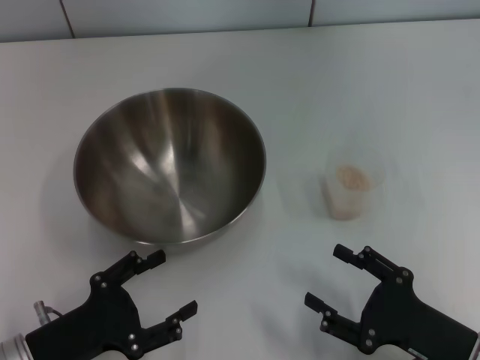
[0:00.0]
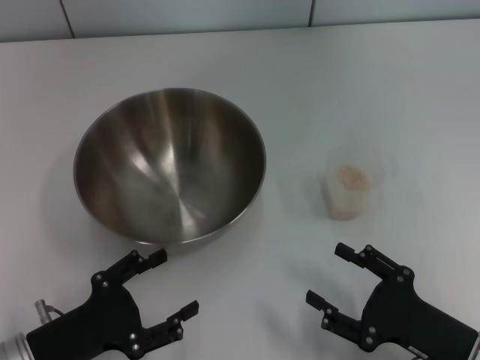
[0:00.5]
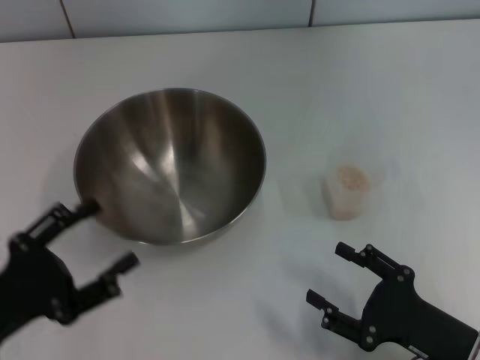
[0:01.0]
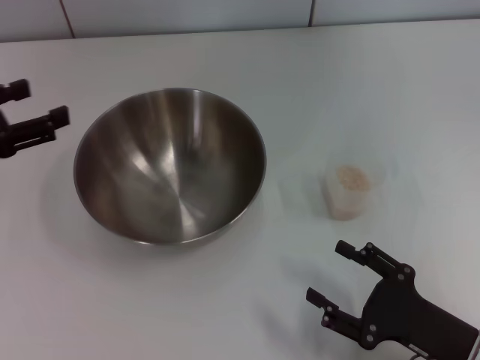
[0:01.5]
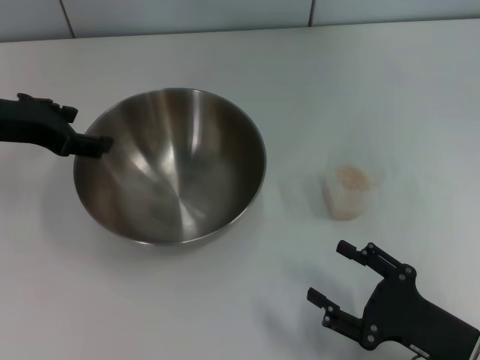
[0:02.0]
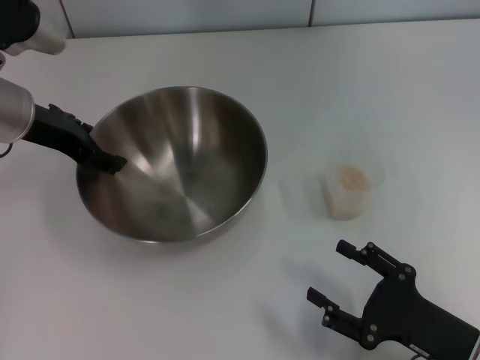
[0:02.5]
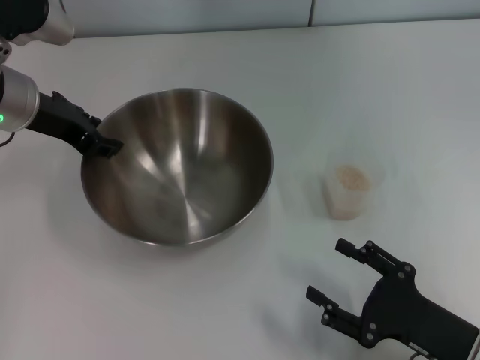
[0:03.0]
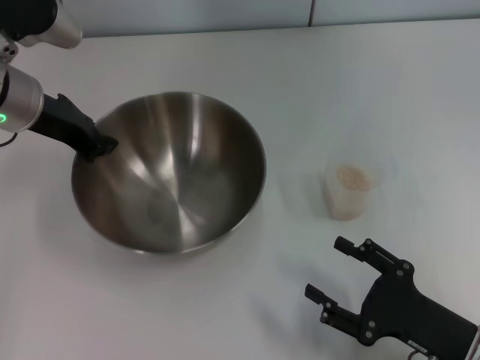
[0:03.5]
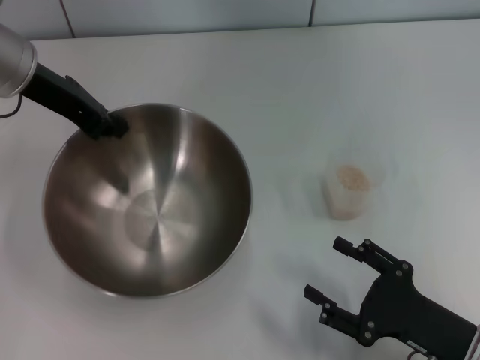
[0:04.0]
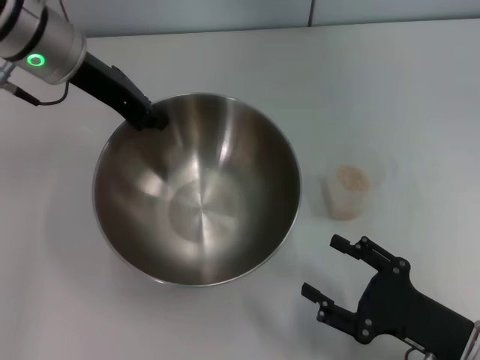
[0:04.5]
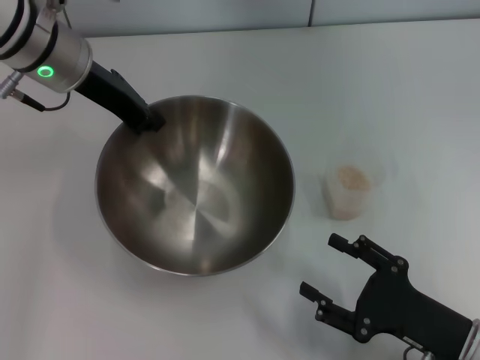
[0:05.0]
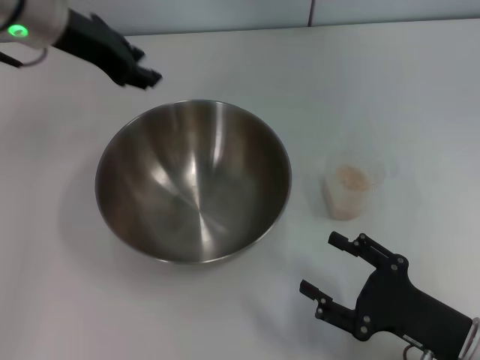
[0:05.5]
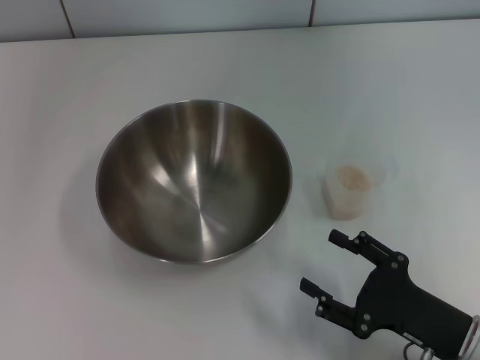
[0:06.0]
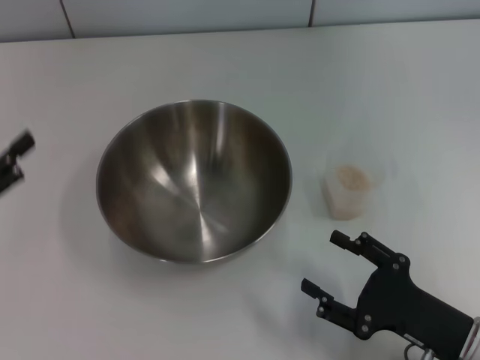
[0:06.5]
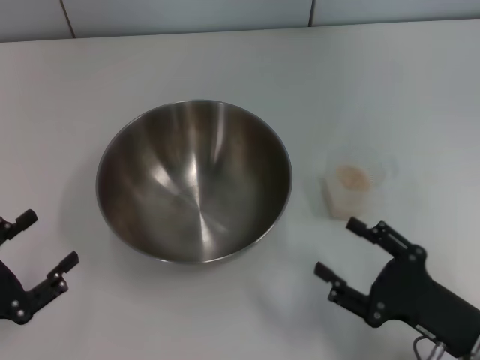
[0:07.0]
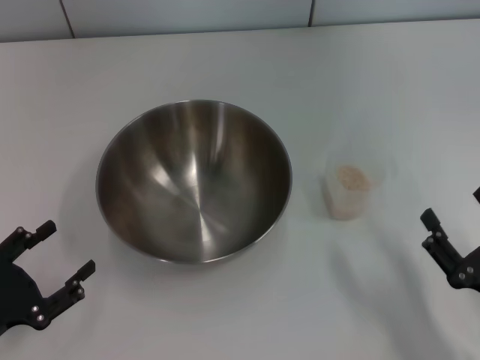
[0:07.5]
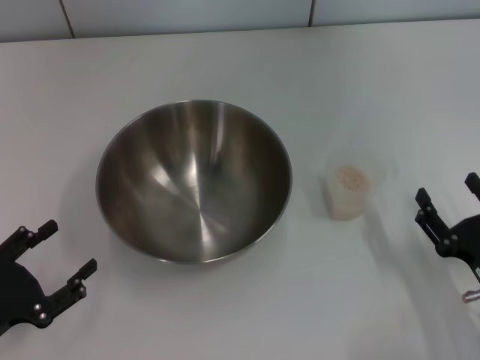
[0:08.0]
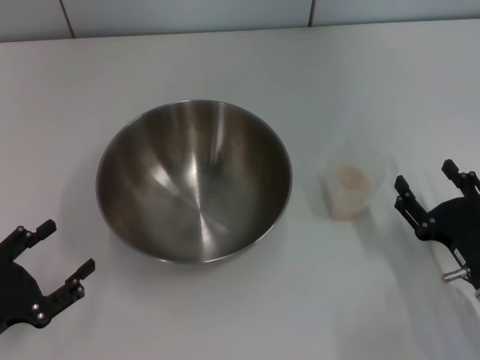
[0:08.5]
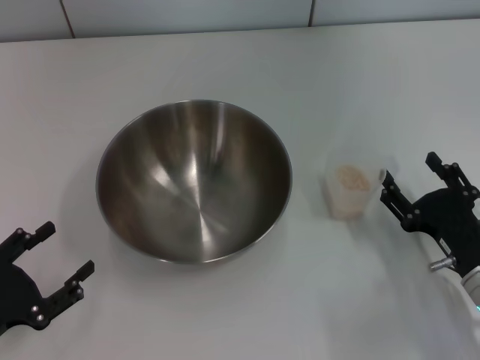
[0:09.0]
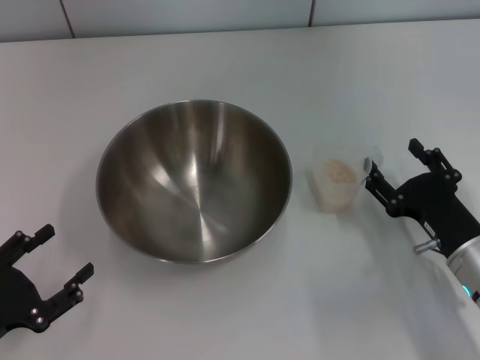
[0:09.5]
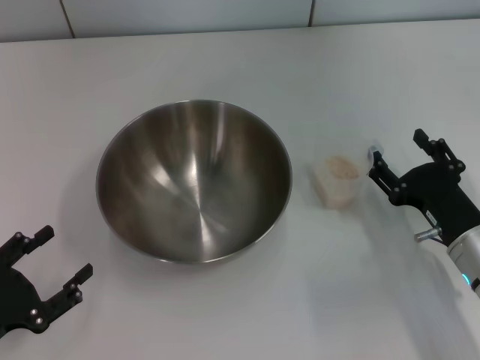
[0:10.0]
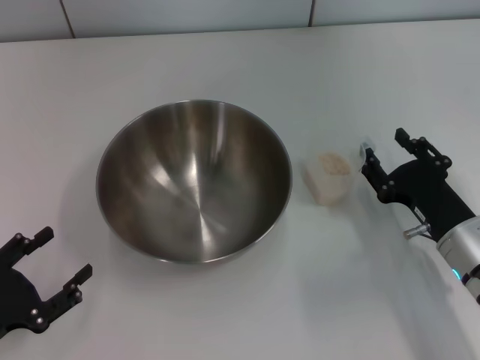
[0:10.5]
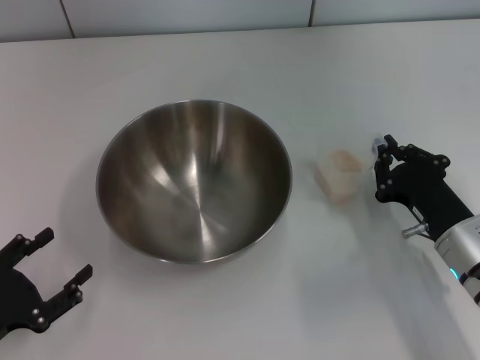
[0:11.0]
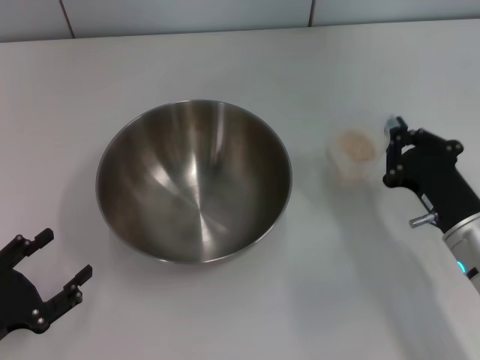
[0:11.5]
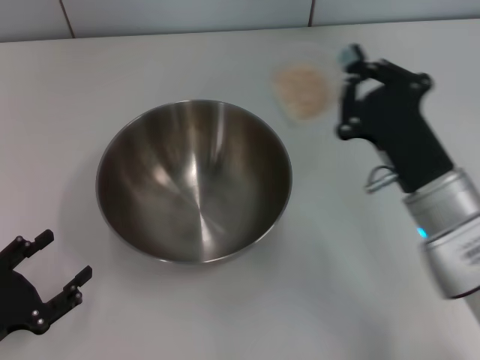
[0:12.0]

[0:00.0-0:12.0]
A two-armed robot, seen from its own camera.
Task of the whole recording: Place the bowl in the middle of the table with one hand and pour the rice from the grain cup into it with the other hand.
Step, 0.0 to 3.0 s: Pick up the bowl with the left gripper.
Step, 3.5 to 5.5 s: Place the bowl in the center of view with the left gripper.
Step, 6.0 to 11.5 s: Pick up the cup with rice in it with the right gripper.
0.0 to 2.0 s: The left gripper travels forward and upward by about 25 cm.
2.0 to 4.0 s: The left gripper travels forward by roughly 5 cm, and closes up.
4.0 to 6.0 s: The left gripper moves upward, backward and to the left, roughly 15 cm, and opens up.
6.0 to 8.0 s: The left gripper is displaced downward and backward by roughly 30 cm.
8.0 to 10.0 s: The right gripper moves forward, approximately 5 cm.
10.0 to 12.0 s: The right gripper moves upward and to the left, roughly 10 cm, and closes up.

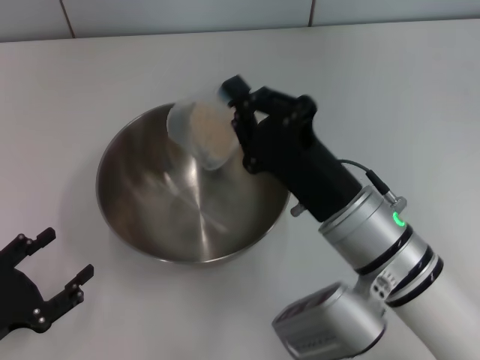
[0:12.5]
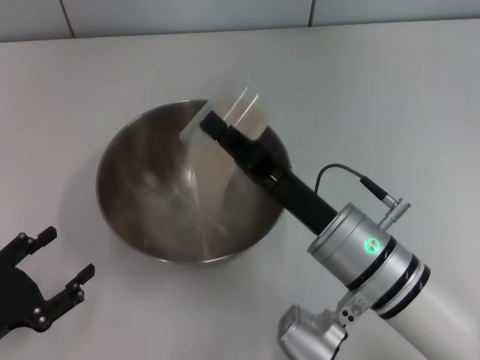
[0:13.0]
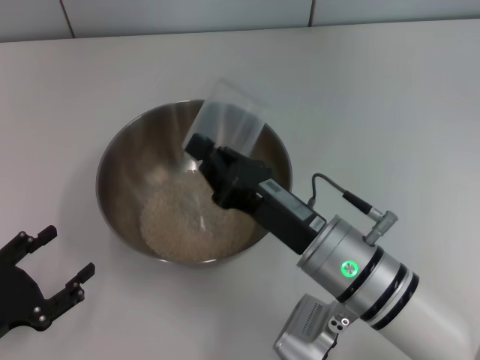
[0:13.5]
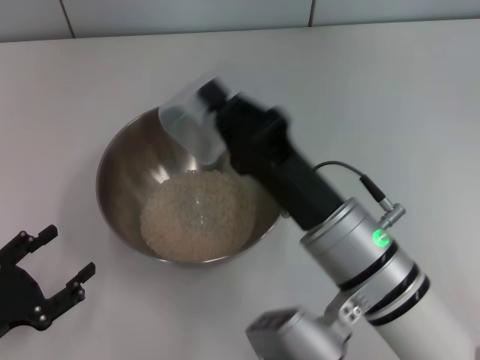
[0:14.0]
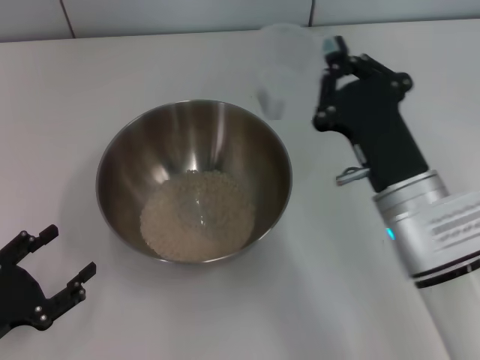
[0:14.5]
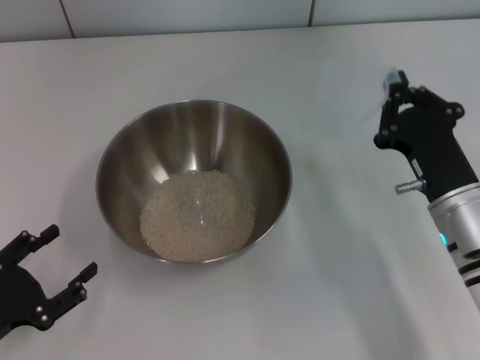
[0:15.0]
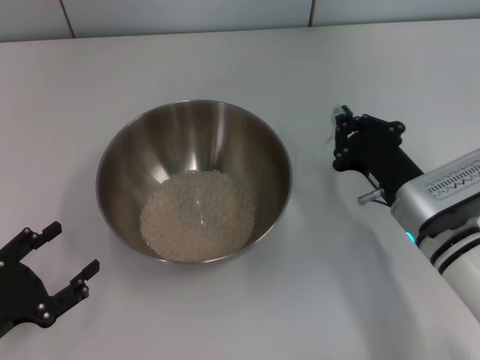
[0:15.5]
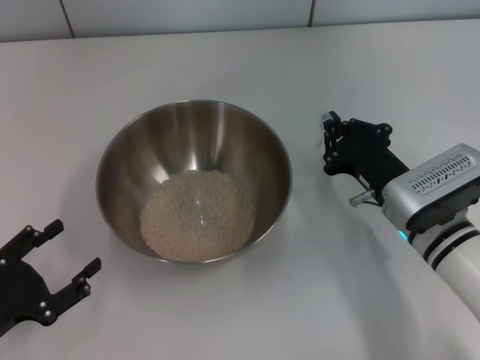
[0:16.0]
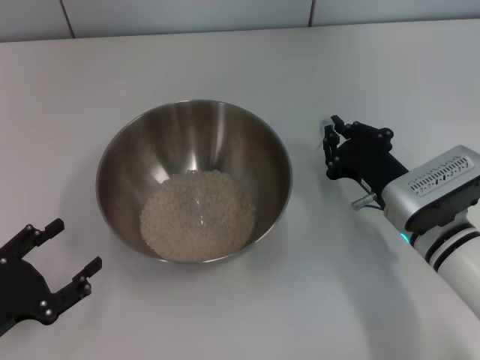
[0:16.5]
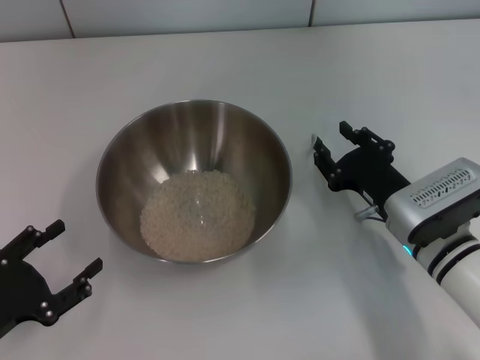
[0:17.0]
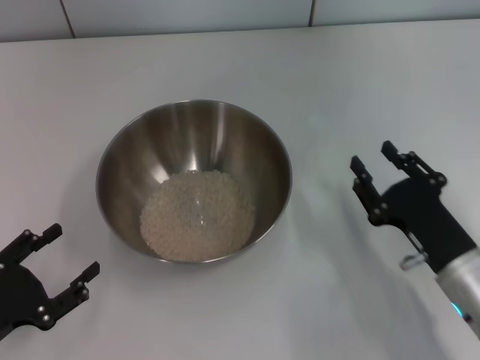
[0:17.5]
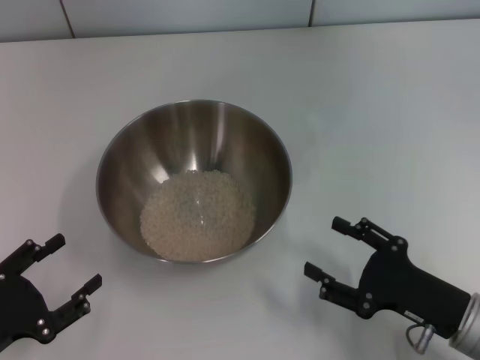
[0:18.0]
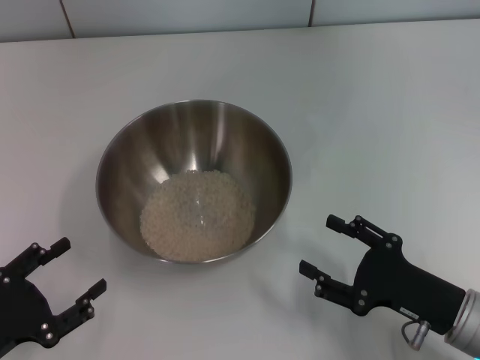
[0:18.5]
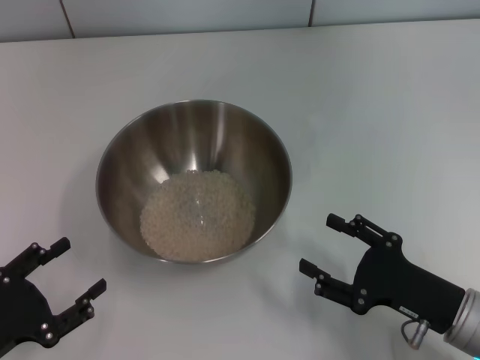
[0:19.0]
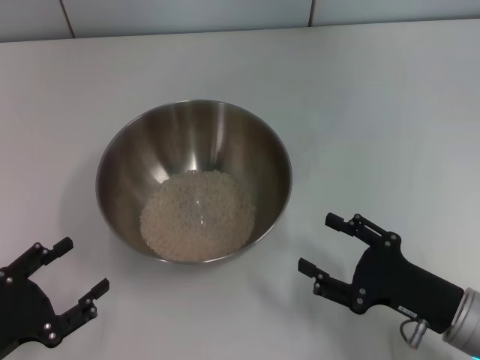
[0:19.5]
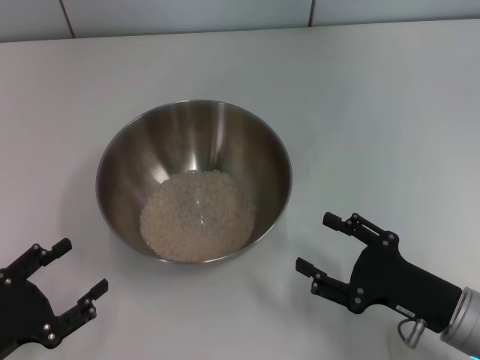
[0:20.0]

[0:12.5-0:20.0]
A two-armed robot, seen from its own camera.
Task of the whole recording: Place the bowl in the middle of the table with one hand and pour the rice from the grain cup into it with the other hand.
Step, 12.5 to 15.0 s: Pour the rice from the cup into the bowl with the right gripper.
Step, 15.5 to 18.0 s: Place the cup on the table with the right gripper.
14.5 to 16.5 s: The right gripper travels downward by approximately 5 cm.
16.5 to 18.0 s: The right gripper goes about 10 cm backward, and opens.
18.0 to 20.0 s: The two grippers keep their place.

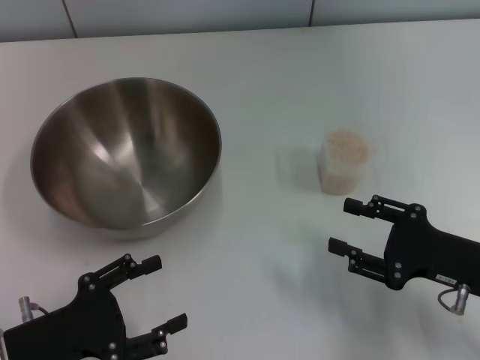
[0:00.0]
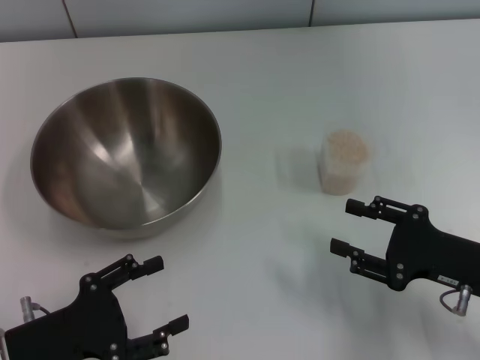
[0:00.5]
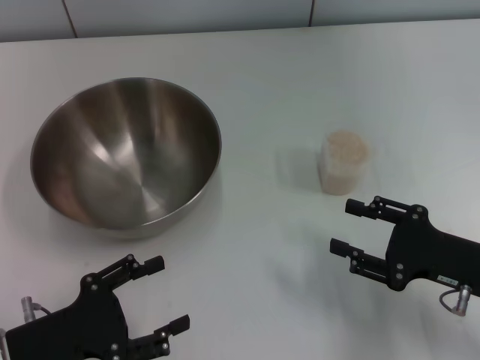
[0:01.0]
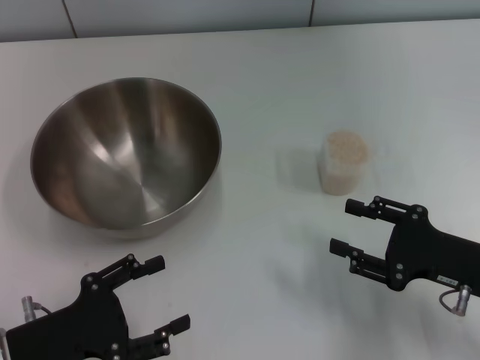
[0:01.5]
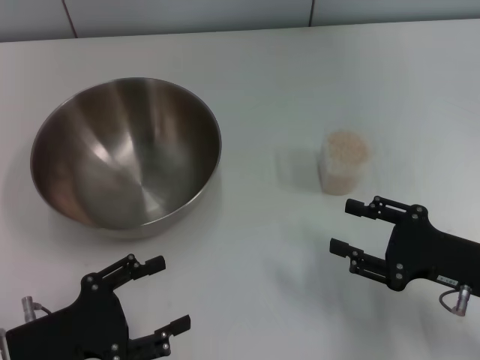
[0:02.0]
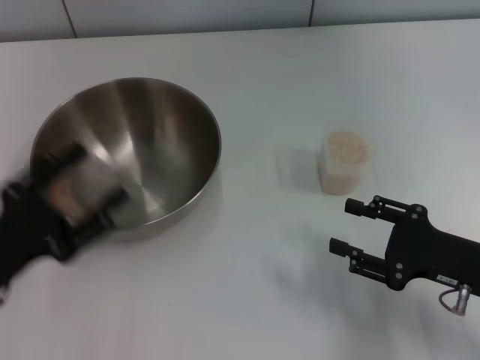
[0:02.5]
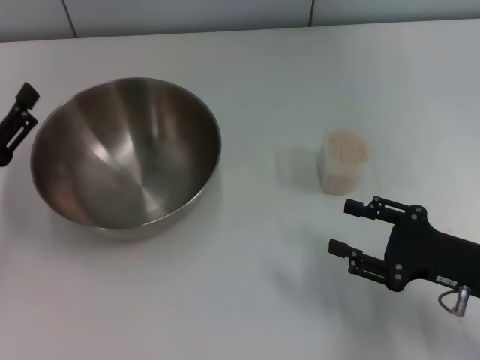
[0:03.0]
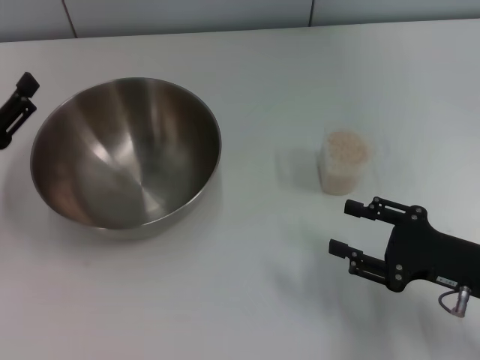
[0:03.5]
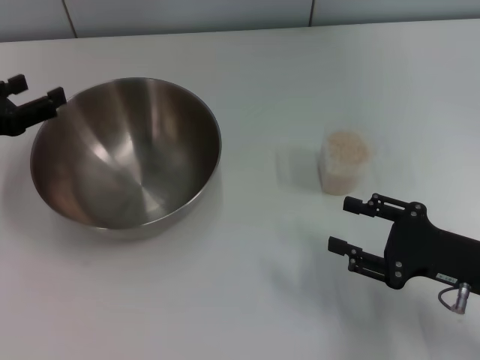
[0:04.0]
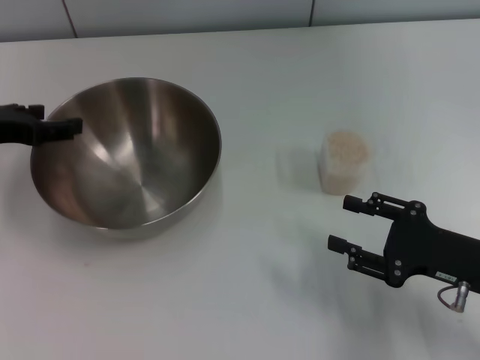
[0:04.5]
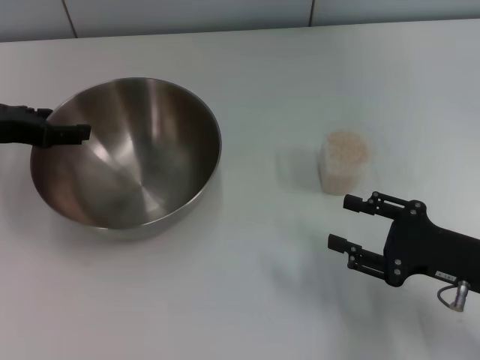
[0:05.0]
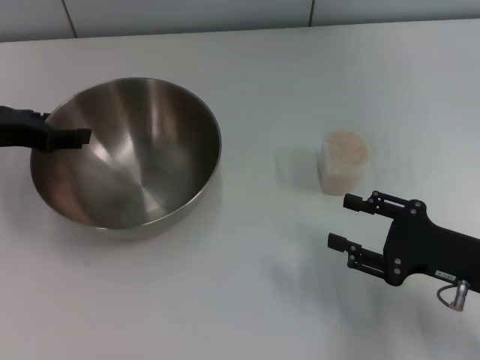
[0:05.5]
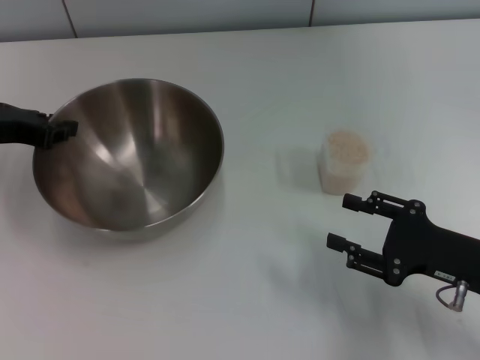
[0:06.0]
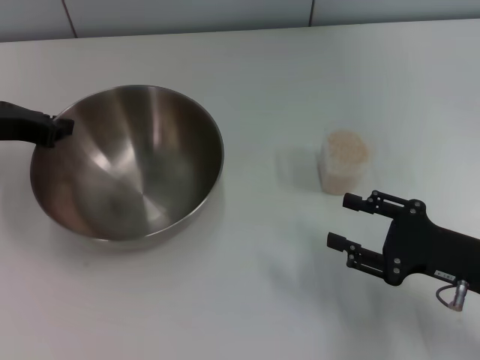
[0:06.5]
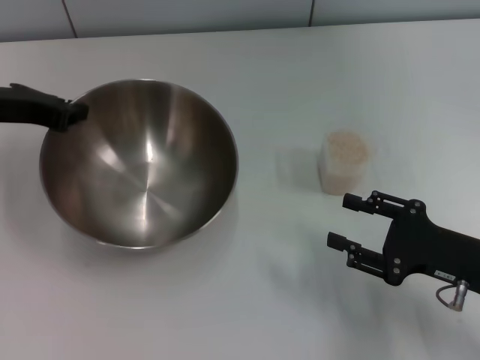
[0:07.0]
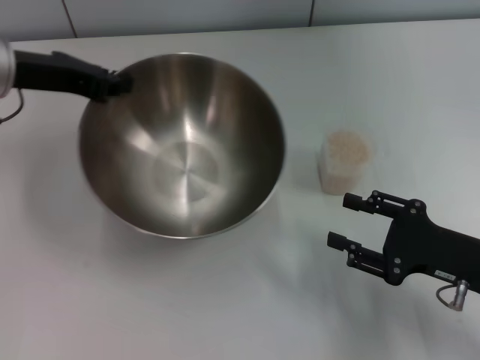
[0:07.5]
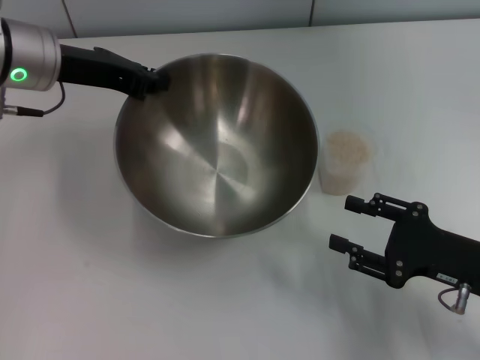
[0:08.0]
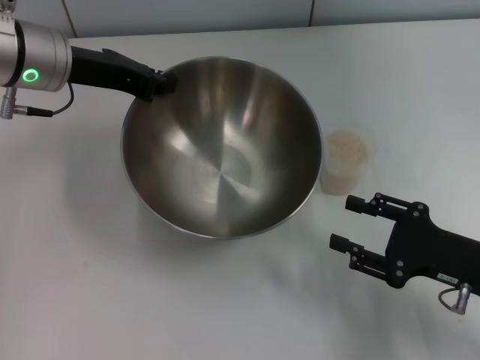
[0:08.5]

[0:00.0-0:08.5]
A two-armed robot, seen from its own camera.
Task of the whole recording: Place the bowl in the middle of the table with one hand and pour the rice from the grain cup into it with the other hand.
Step, 0.0 to 7.0 s: Pick up the bowl with the left gripper.
0.0 to 2.0 s: Neither gripper changes place.
2.0 to 4.0 s: The left gripper goes some 20 cm forward, upward and to the left.
4.0 to 6.5 s: The left gripper changes place by about 5 cm, and closes its fingers.
6.5 to 8.5 s: The left gripper heads to the right, covering roughly 10 cm.
